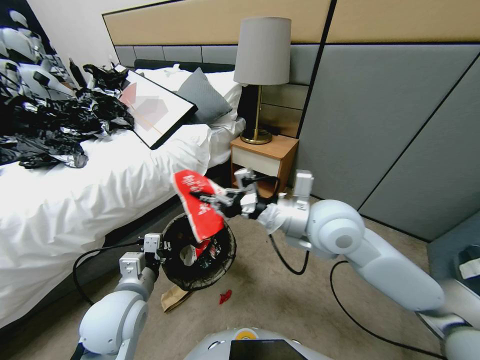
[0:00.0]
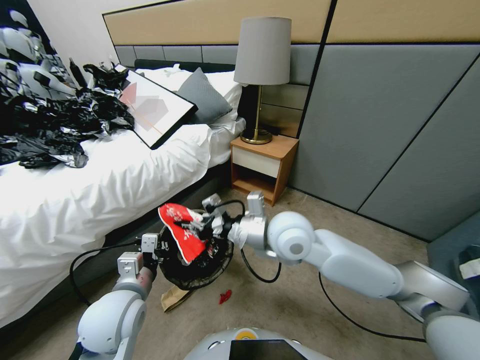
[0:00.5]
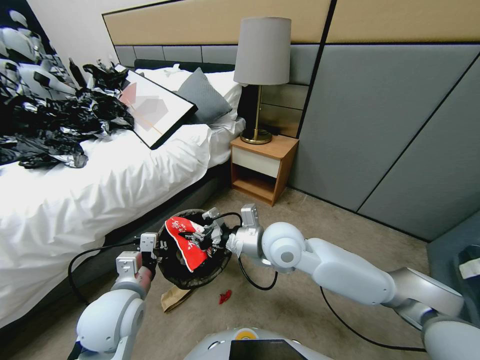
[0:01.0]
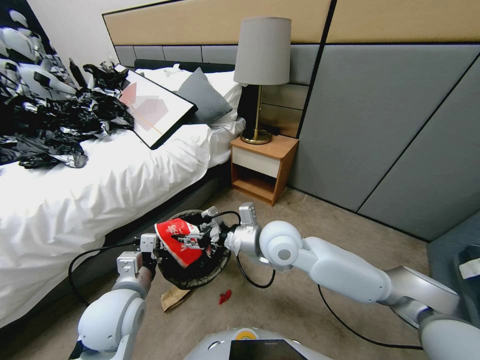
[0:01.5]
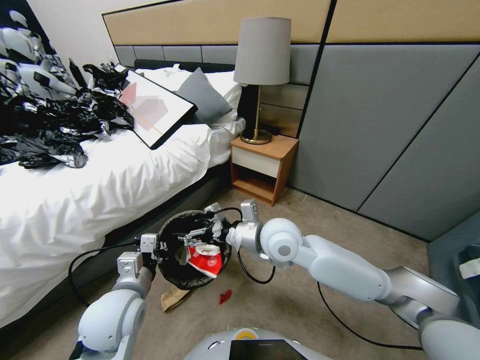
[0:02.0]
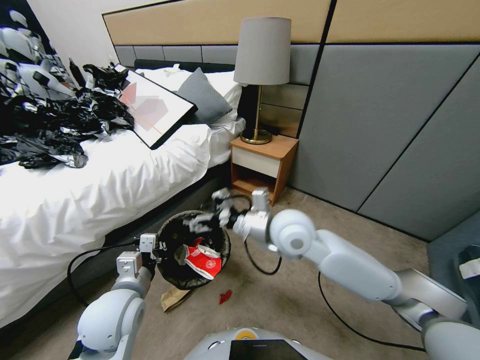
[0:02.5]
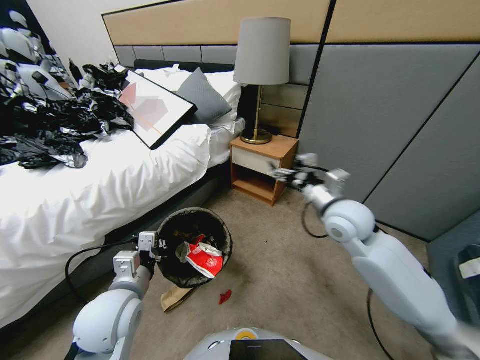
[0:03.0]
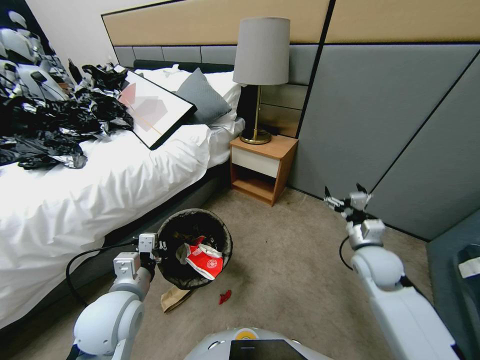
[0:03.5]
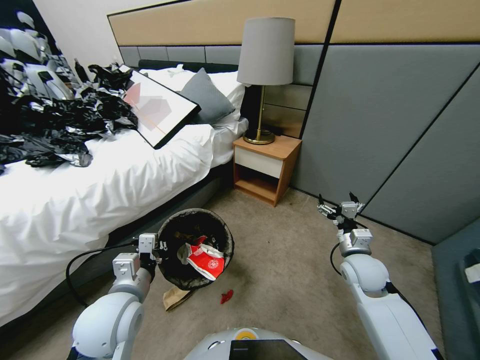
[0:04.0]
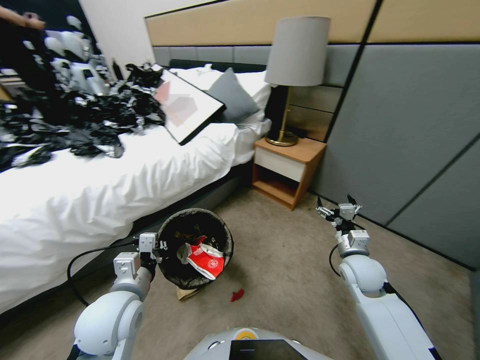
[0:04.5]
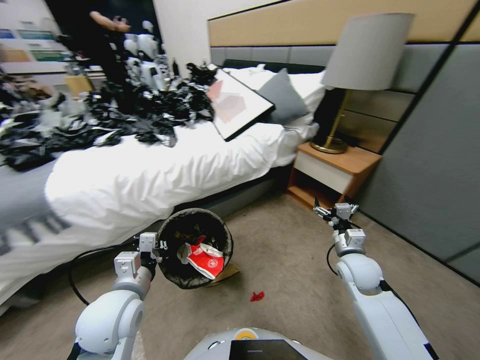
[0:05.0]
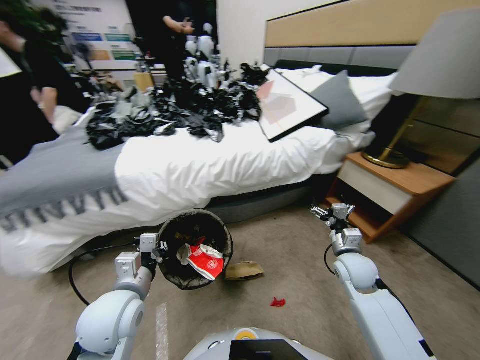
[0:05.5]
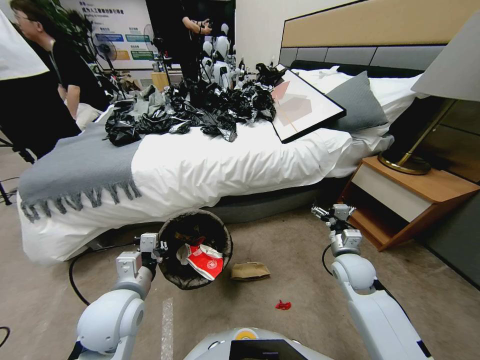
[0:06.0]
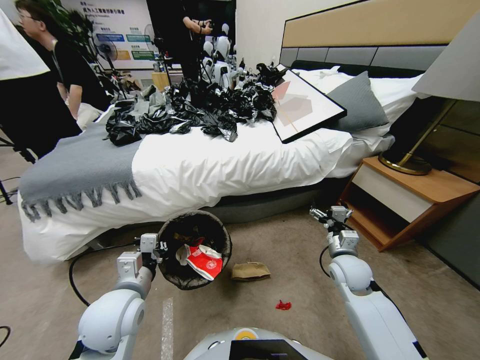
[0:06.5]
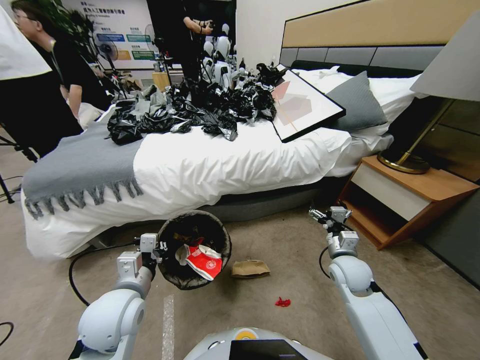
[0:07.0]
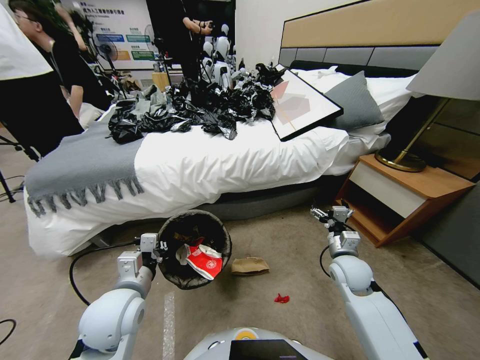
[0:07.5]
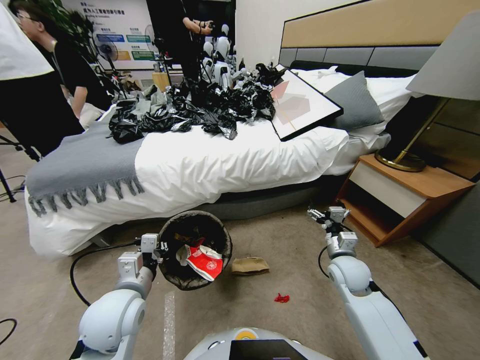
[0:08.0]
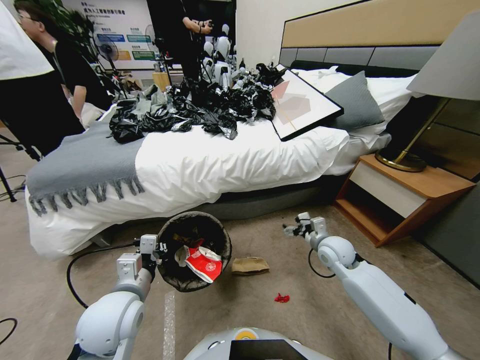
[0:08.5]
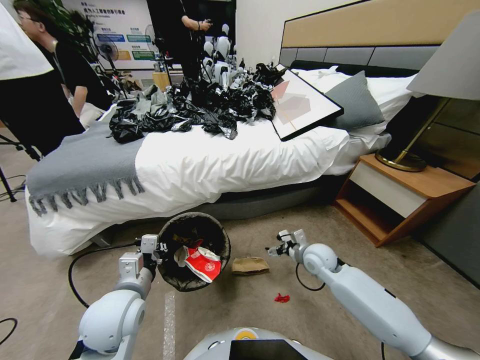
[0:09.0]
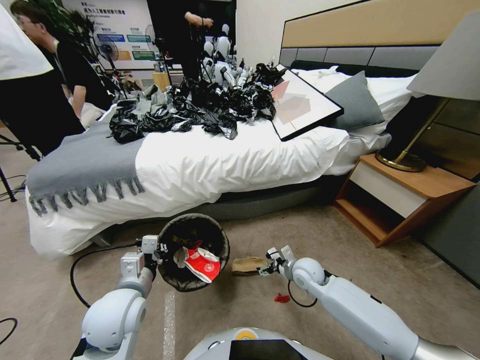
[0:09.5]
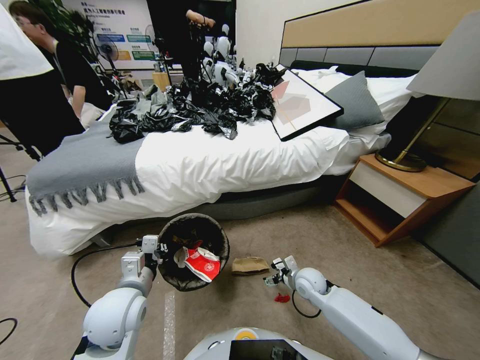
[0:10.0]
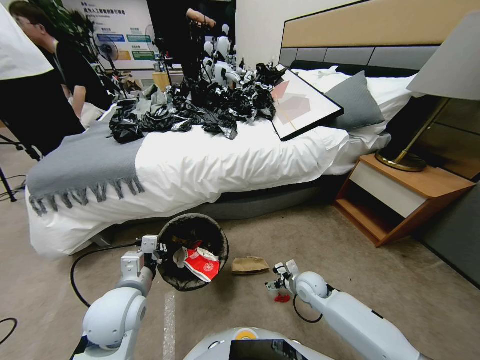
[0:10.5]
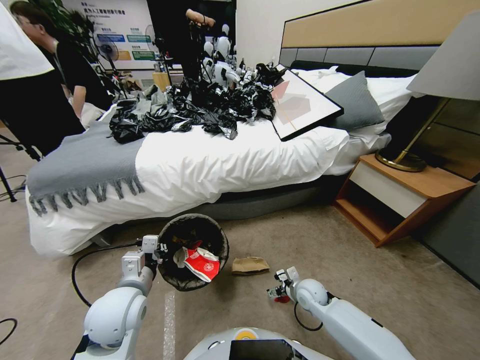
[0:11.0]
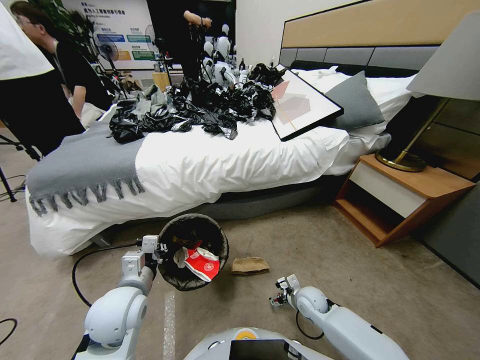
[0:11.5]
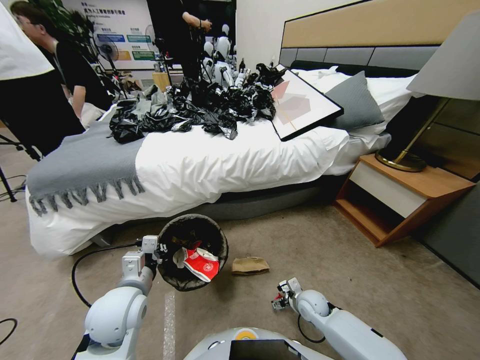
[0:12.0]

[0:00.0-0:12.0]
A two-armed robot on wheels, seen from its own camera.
Task of the whole recording: Pick up the trash bin, then pick up the garbage from the floor and place it into the trash bin.
0:00.0 to 0:02.0: The right gripper goes some 10 cm downward, and opens its fingers.
0:02.0 to 0:04.0: The right gripper moves to the right and downward, about 25 cm.
0:06.0 to 0:08.0: The grippers make only small movements.
0:08.0 to 0:10.0: The right gripper goes roughly 15 cm downward and to the left.
0:10.0 to 0:12.0: The right gripper travels downward by roughly 5 cm.

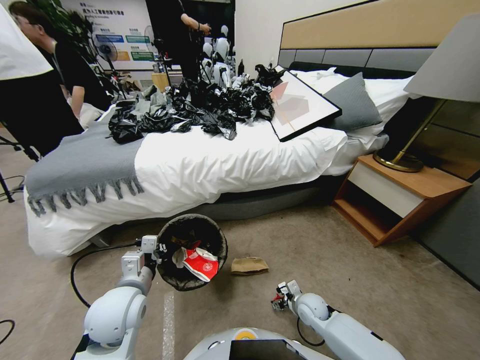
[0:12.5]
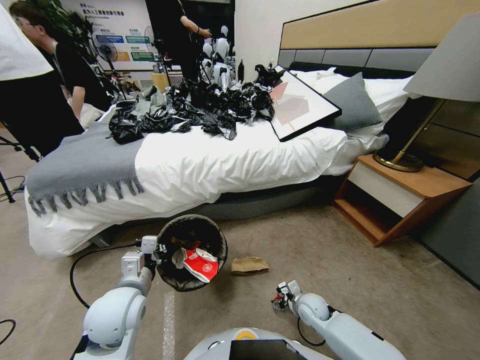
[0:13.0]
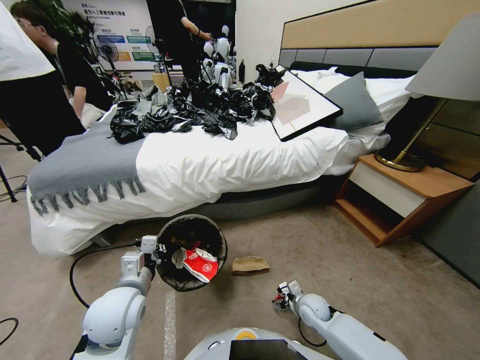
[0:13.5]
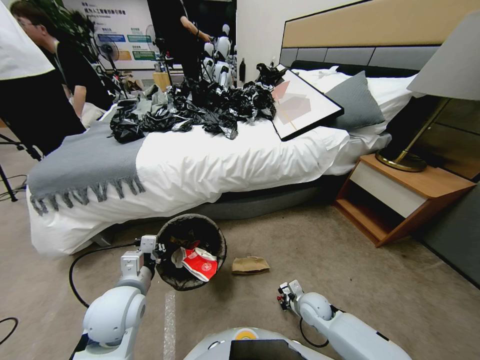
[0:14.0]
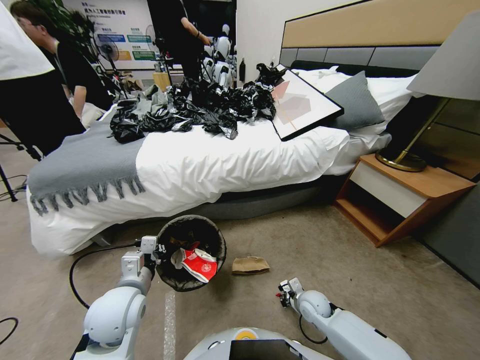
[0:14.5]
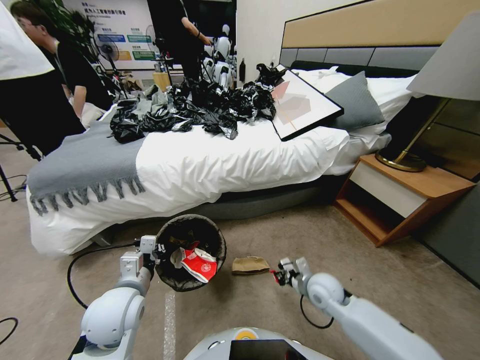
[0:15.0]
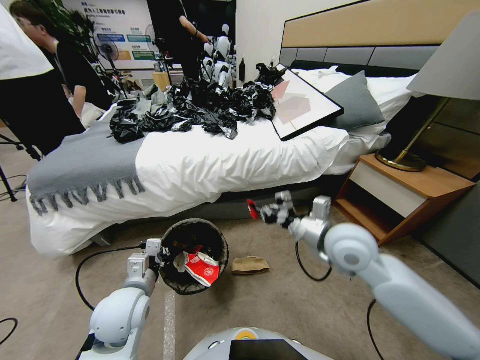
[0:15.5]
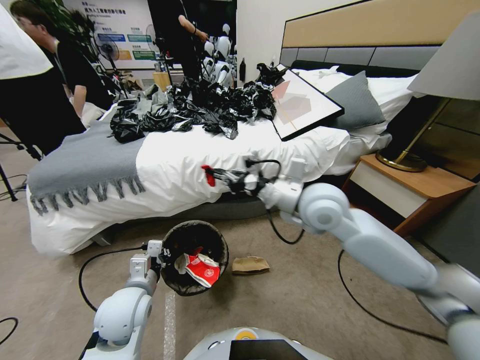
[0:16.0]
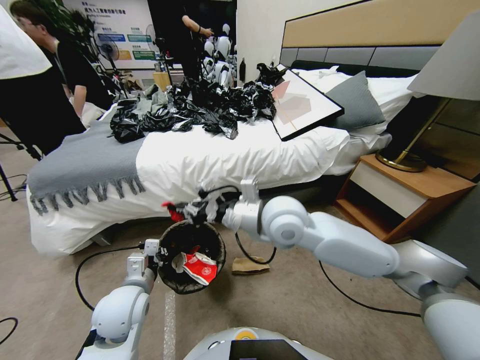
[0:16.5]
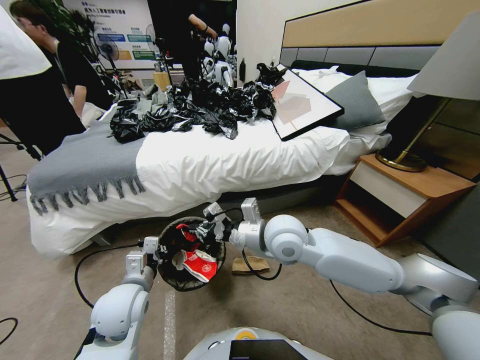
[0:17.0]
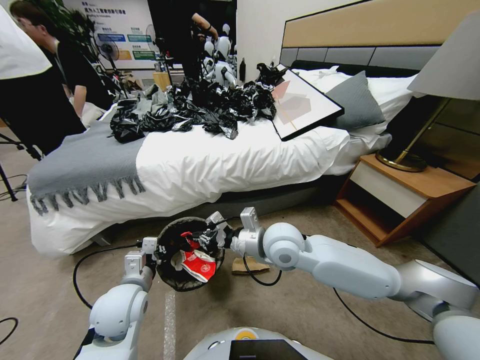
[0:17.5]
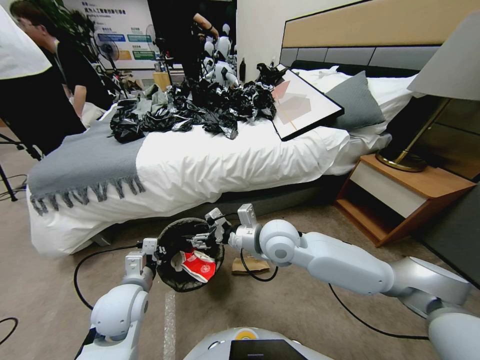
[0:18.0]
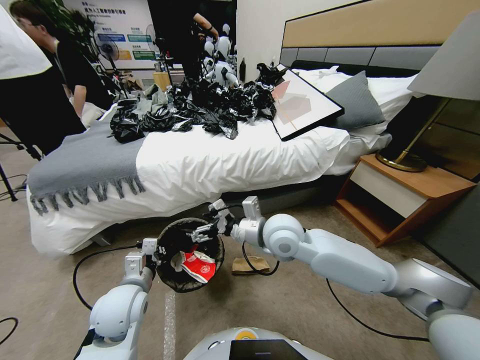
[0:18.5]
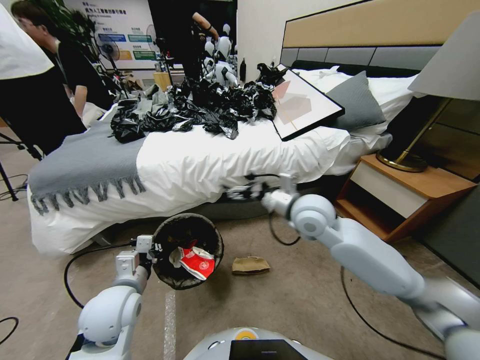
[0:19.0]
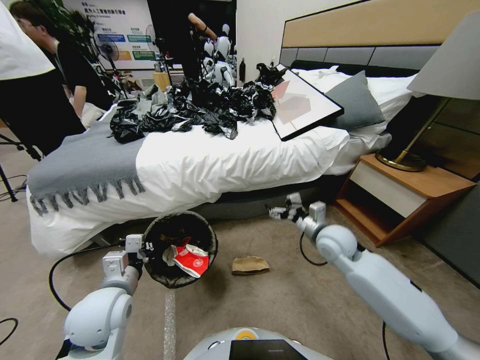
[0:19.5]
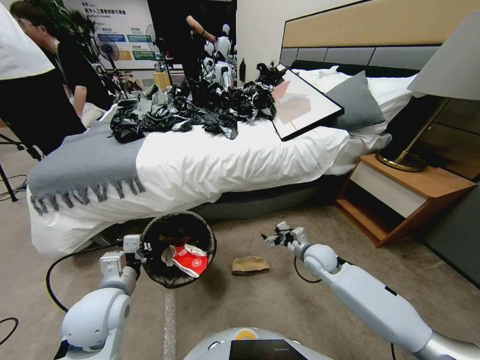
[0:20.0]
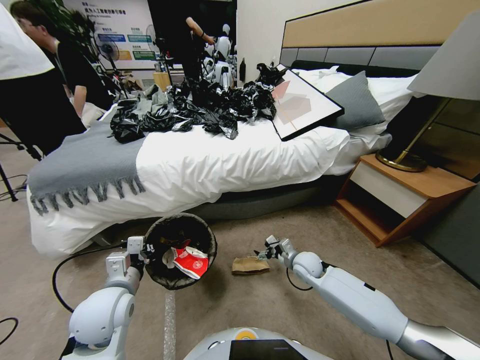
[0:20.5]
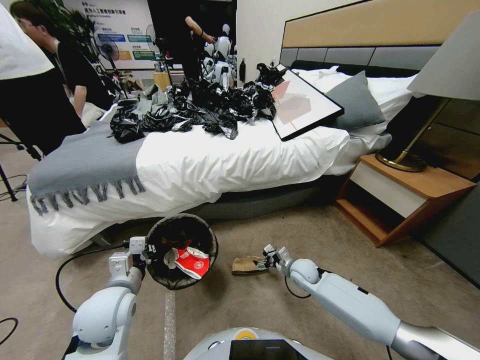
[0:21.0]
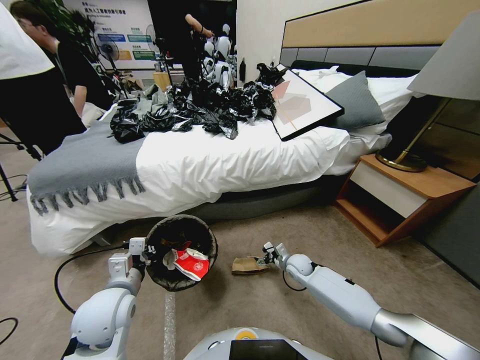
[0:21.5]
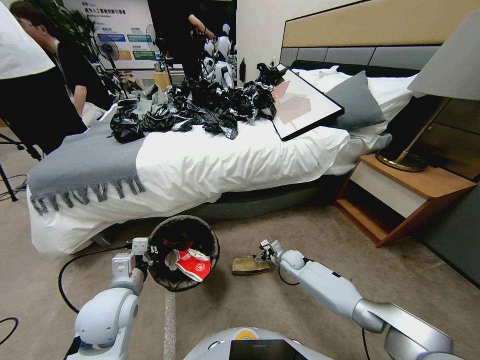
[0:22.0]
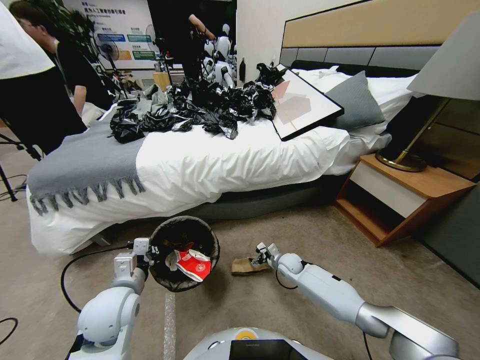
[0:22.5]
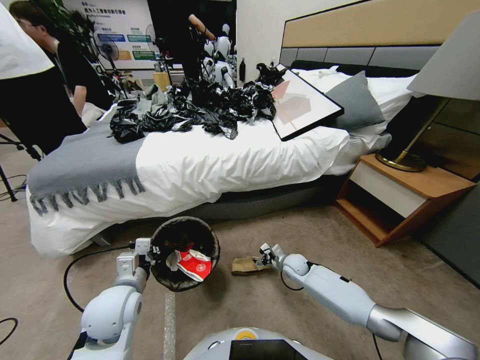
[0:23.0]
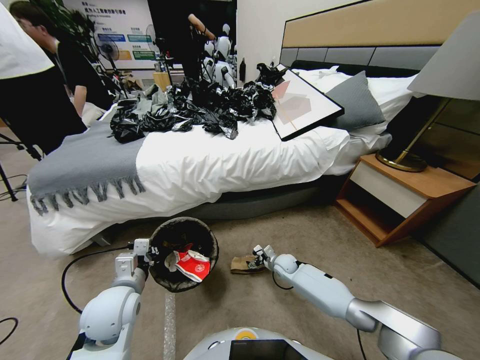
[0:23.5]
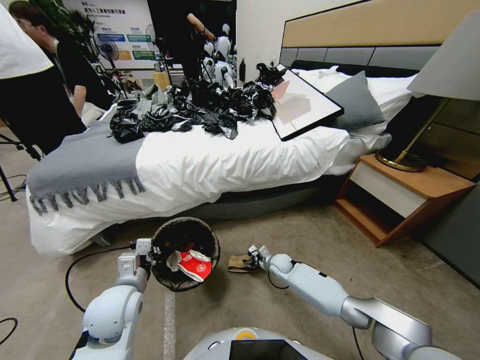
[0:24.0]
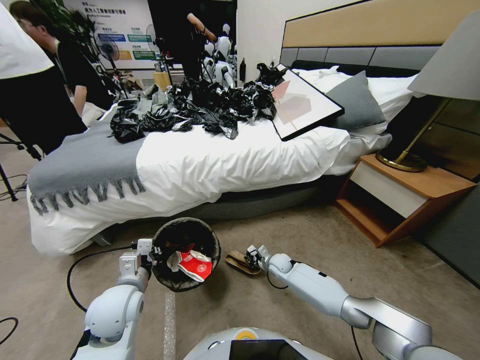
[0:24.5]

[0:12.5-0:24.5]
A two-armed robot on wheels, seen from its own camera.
Task of the whole recording: Pick up the trash bin, then pick up the garbage from the floor and place it into the trash bin.
0:12.5 to 0:14.5: The right gripper closes.
0:14.5 to 0:16.5: The right gripper shifts roughly 40 cm upward and to the left.
0:16.5 to 0:18.5: The right gripper opens.
0:18.5 to 0:20.5: The right gripper moves downward and to the right, about 30 cm.
0:20.5 to 0:22.5: The right gripper moves downward, some 5 cm.
0:22.5 to 0:24.5: The right gripper closes up.

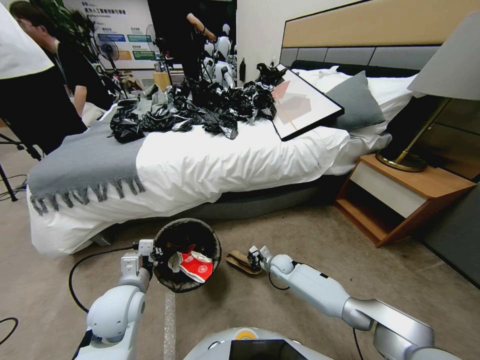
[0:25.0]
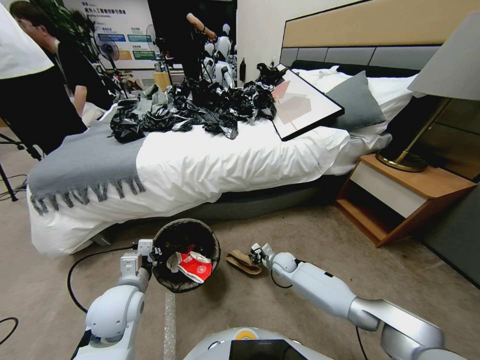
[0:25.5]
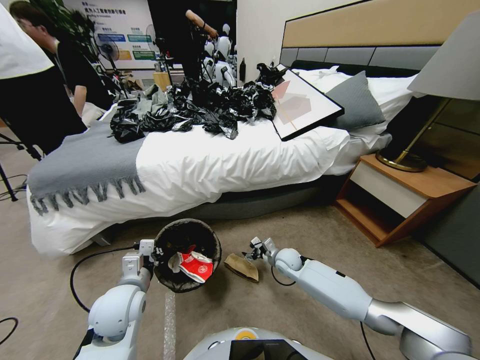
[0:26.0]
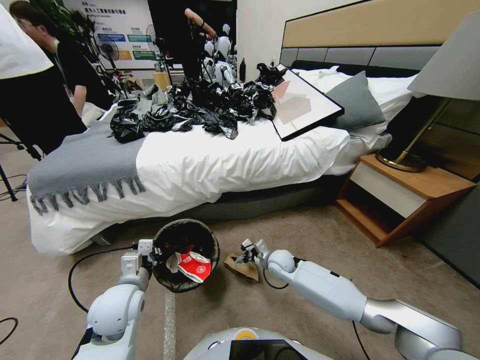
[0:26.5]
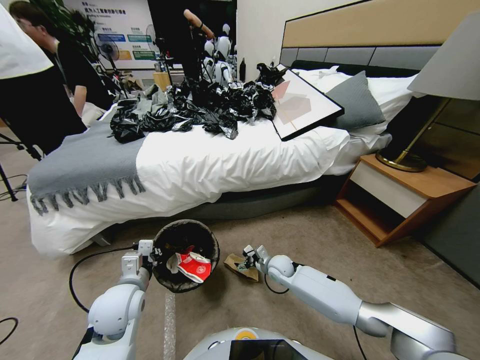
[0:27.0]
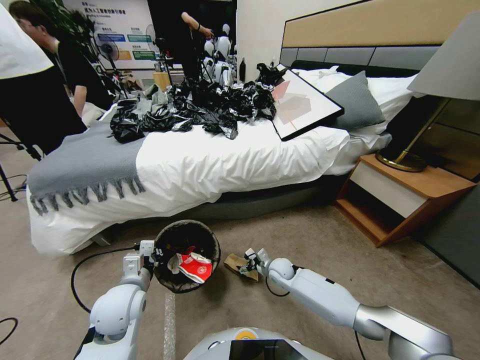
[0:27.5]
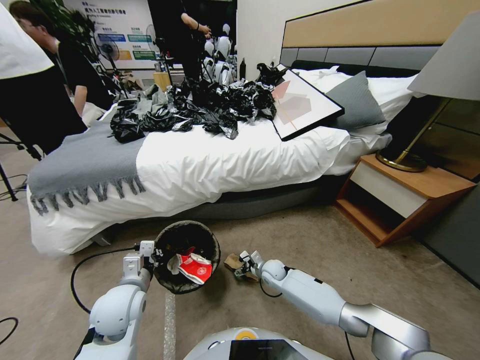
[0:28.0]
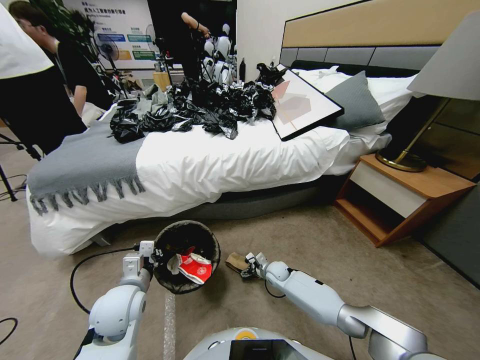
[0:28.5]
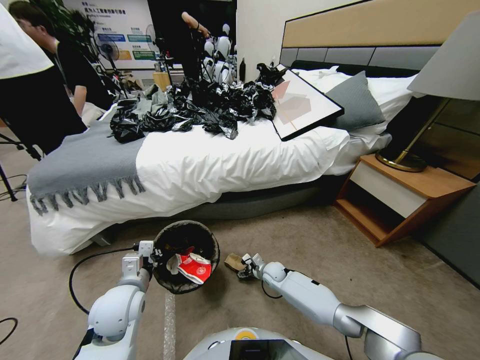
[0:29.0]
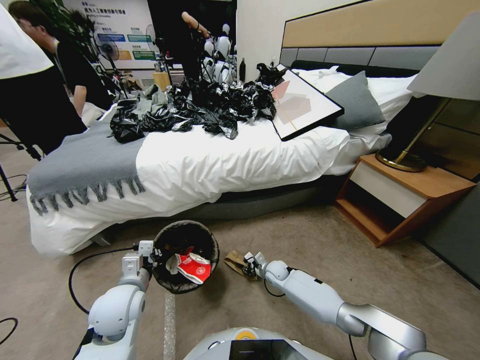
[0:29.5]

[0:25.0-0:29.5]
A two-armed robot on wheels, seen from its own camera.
Task of the whole recording: Pick up the trash bin, then pick up the garbage from the floor and place it into the trash bin.
0:25.0 to 0:27.0: The right gripper opens.
0:27.0 to 0:29.5: The right gripper travels downward by approximately 5 cm, and closes up.
